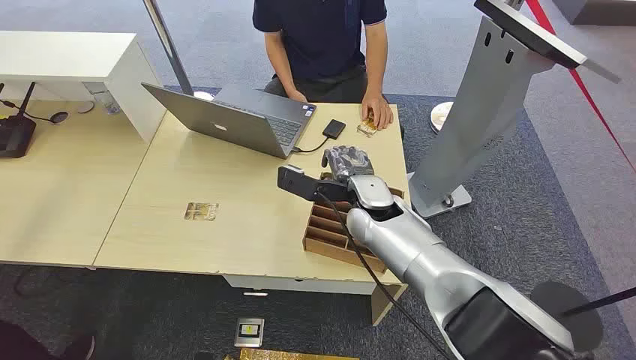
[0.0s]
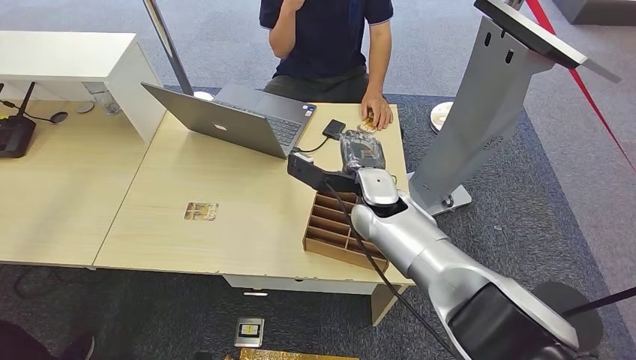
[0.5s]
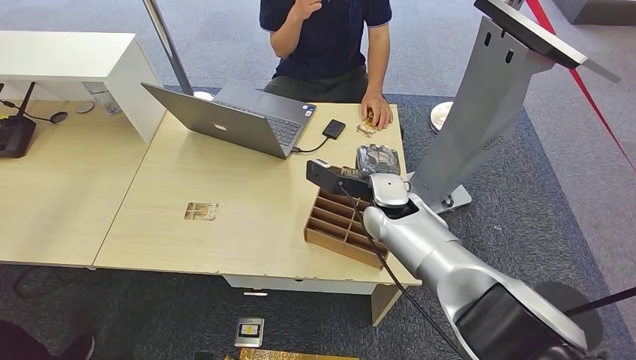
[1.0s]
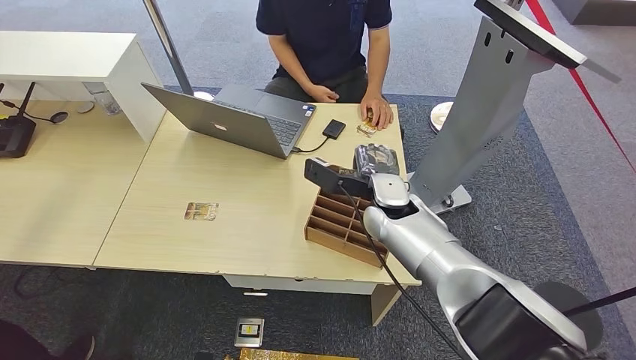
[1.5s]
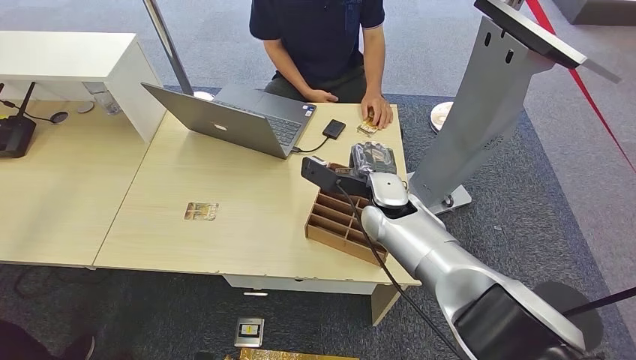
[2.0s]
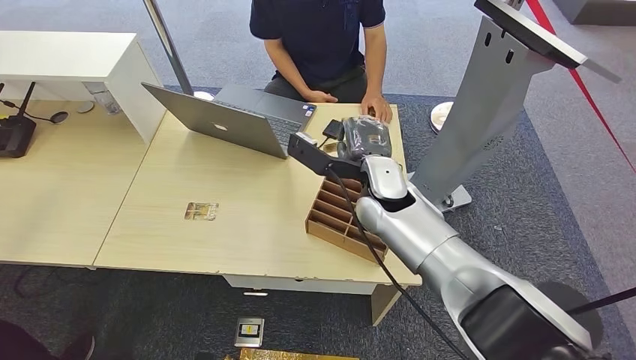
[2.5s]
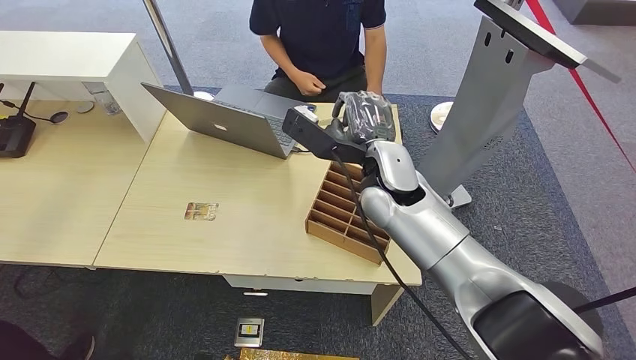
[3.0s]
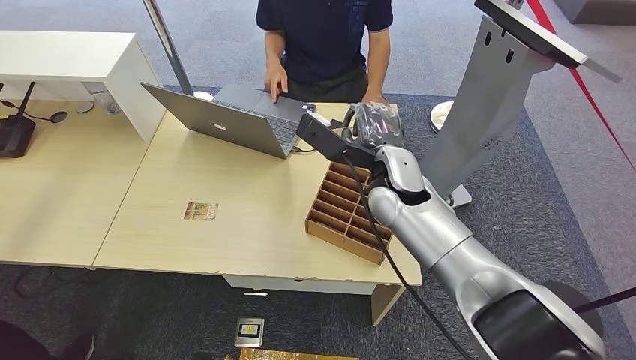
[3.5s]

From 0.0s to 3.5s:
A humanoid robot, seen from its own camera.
Step, from 0.0s to 3.0s: Pick up the key card from the card box.
From 2.0s to 3.5s: The right hand goes about 5 cm upward.
